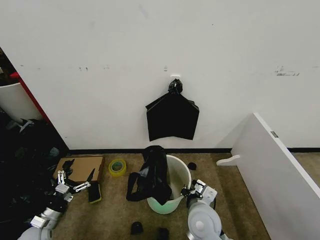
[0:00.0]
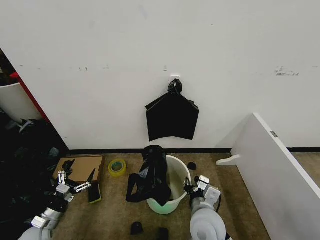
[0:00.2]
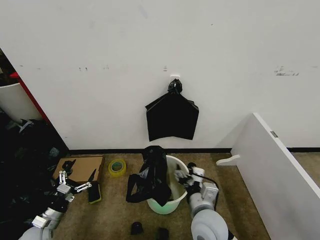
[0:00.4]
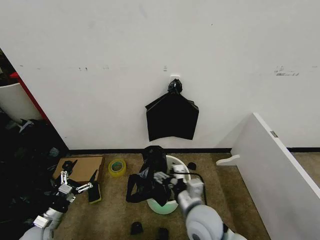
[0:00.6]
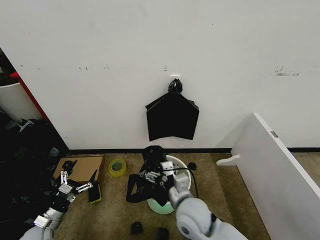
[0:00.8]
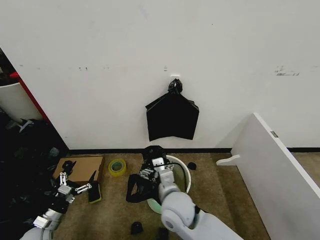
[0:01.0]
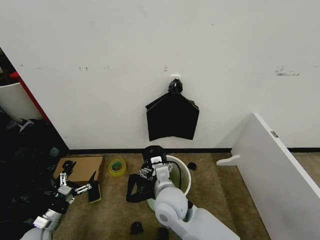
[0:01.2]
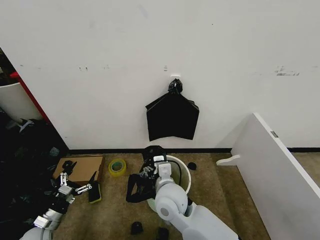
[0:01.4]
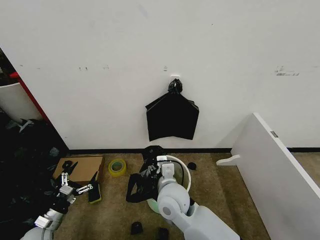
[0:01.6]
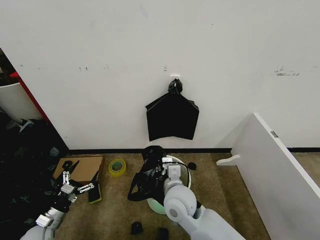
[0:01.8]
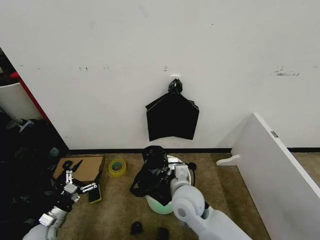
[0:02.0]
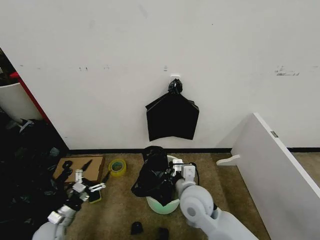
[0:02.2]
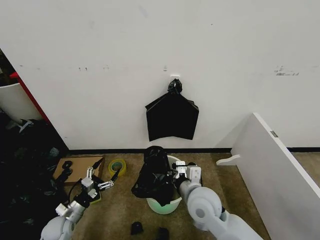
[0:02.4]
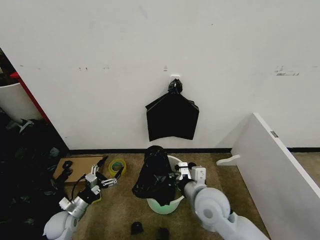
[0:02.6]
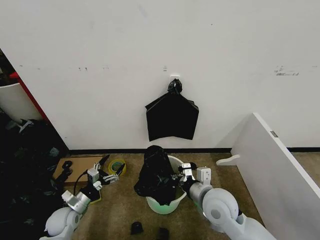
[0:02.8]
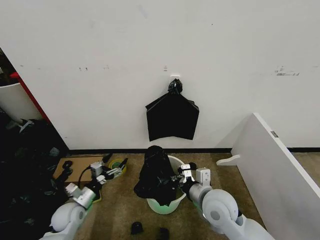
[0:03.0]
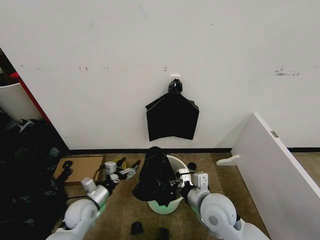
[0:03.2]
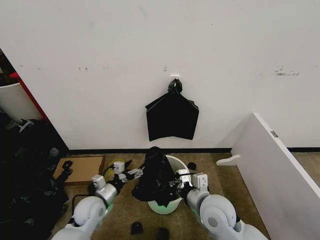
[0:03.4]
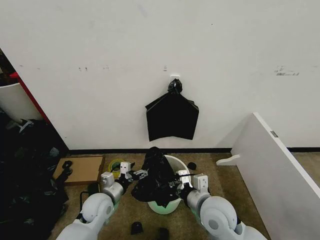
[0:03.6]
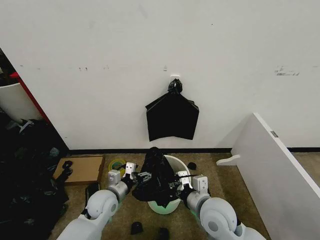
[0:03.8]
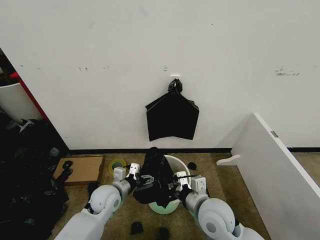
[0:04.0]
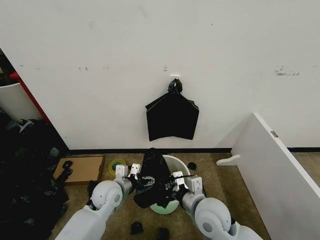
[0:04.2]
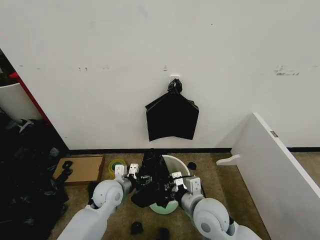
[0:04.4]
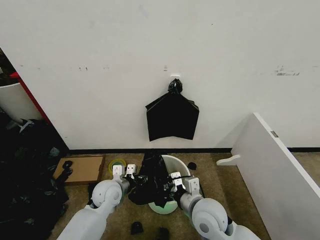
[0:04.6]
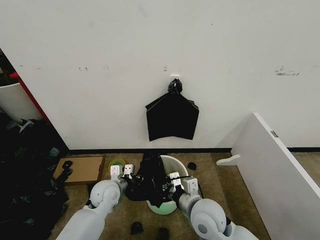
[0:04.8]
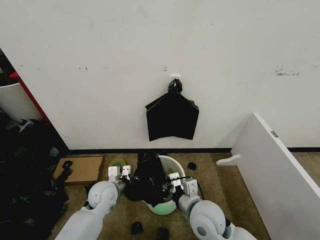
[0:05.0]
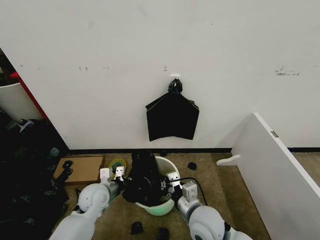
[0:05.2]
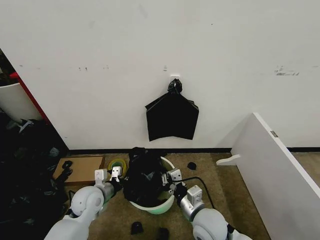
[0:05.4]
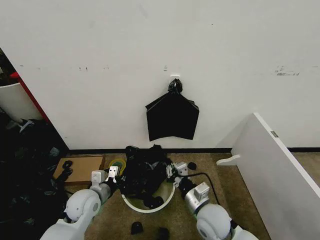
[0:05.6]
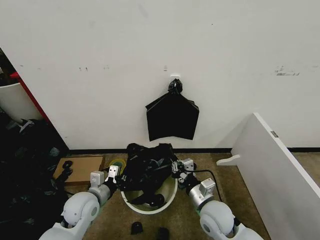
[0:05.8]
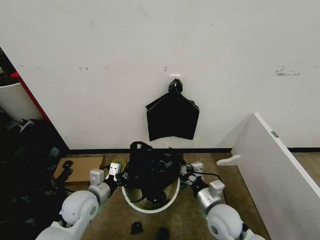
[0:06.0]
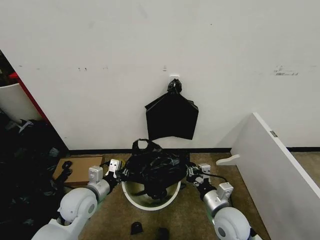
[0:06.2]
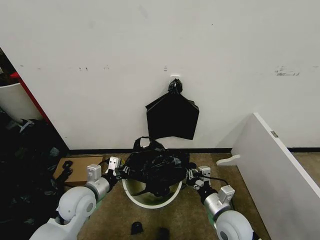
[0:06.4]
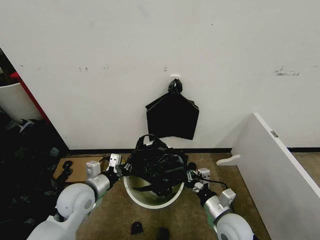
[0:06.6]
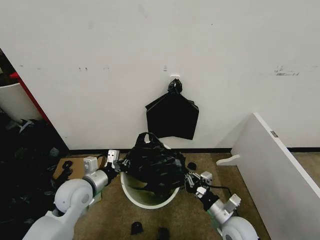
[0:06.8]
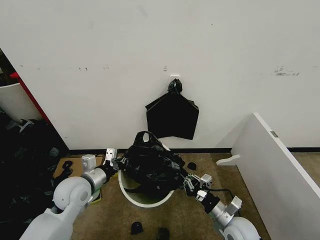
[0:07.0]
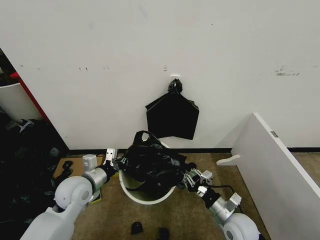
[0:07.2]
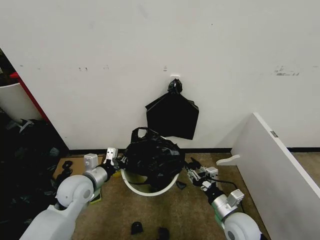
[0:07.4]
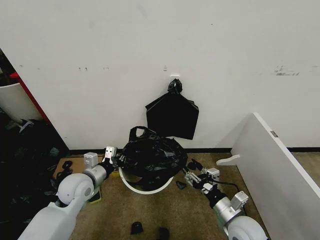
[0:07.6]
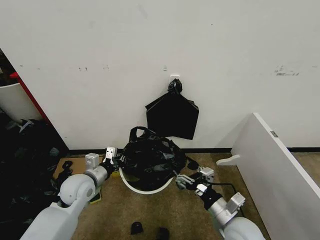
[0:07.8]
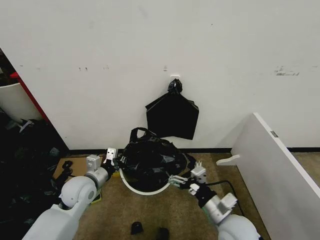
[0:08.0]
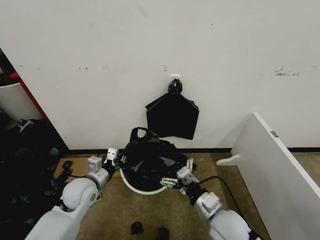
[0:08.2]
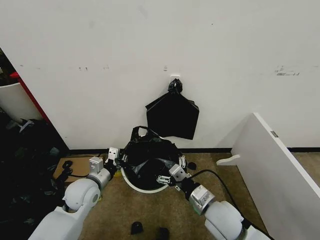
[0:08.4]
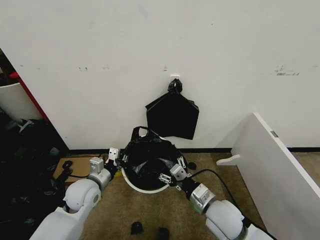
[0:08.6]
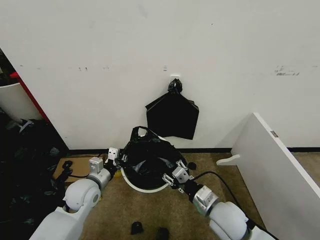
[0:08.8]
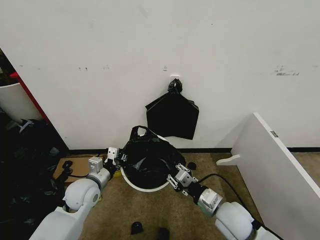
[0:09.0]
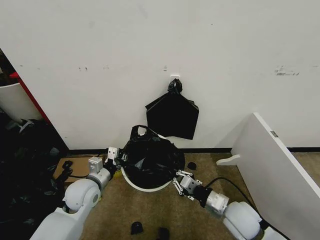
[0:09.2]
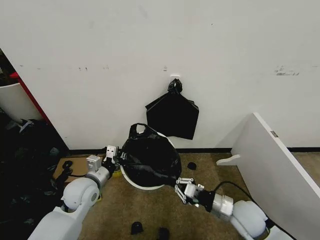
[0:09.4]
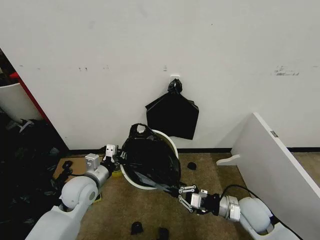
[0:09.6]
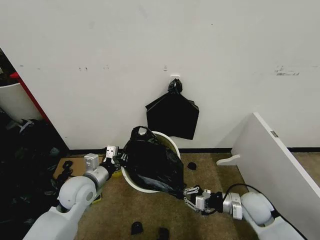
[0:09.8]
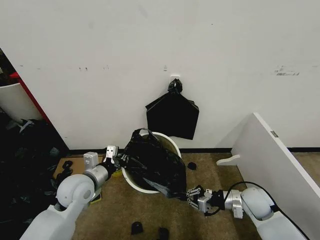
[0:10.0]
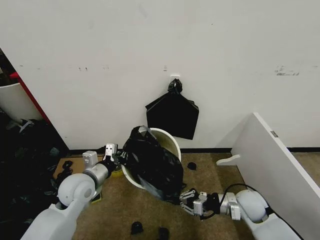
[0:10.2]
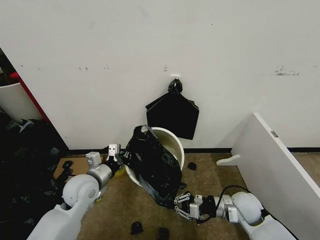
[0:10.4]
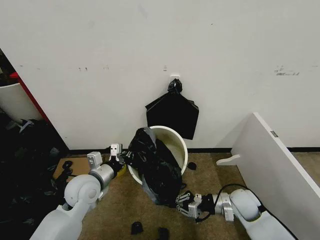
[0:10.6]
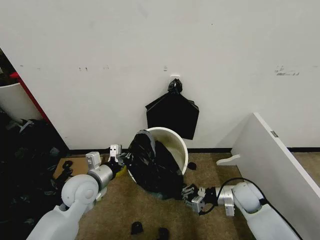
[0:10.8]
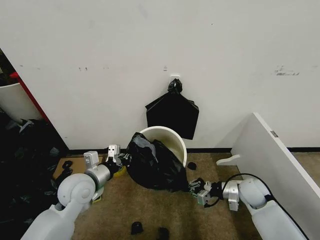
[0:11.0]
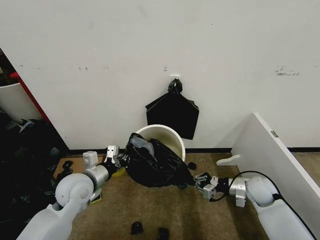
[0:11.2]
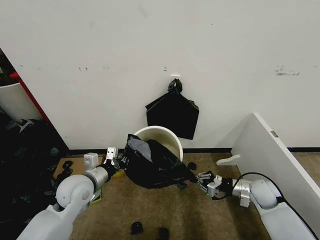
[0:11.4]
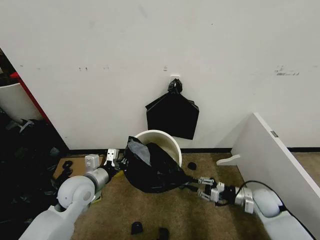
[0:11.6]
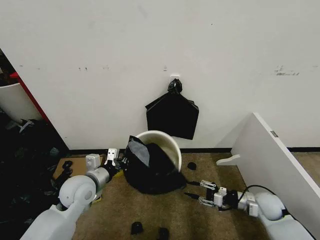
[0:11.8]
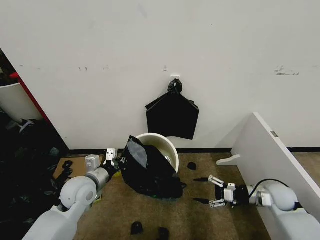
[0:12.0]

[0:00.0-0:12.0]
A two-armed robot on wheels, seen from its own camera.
Task of the whole recording: Place the garbage bag over the trash bin.
0:00.0 to 0:01.6: The right gripper shifts roughly 10 cm to the left and upward, and opens, then closes once more.
0:01.6 to 0:03.0: The right gripper travels to the right by roughly 15 cm, and closes; the left gripper shifts about 15 cm to the right, forward and upward.
0:03.0 to 0:04.4: The left gripper moves to the right and upward, approximately 15 cm.
0:04.4 to 0:06.0: The right gripper travels downward and to the right by roughly 10 cm, while the left gripper heads to the left and backward, covering about 10 cm, and closes.
0:06.0 to 0:07.6: The right gripper is displaced to the right by about 5 cm, and opens its fingers; the left gripper ends up some 5 cm from where it was.
0:09.0 to 0:10.4: The right gripper heads to the right, forward and downward, covering approximately 10 cm.
0:10.4 to 0:12.0: The right gripper travels to the right by some 15 cm, and opens up.

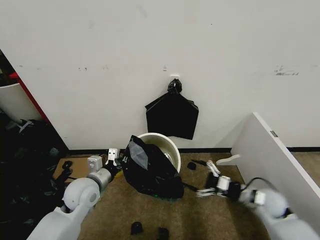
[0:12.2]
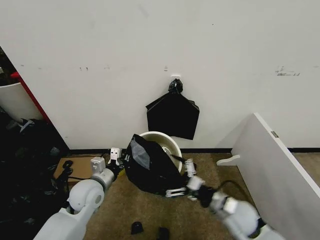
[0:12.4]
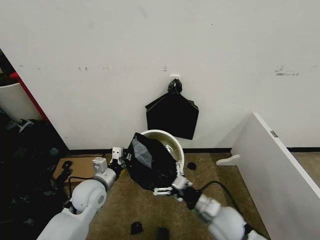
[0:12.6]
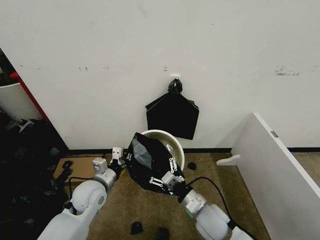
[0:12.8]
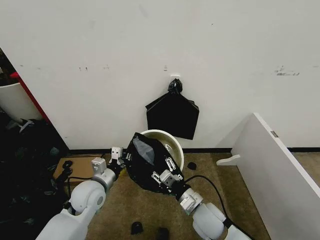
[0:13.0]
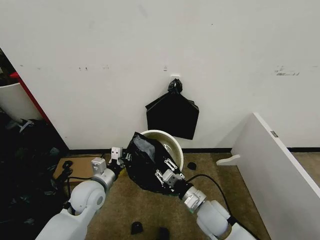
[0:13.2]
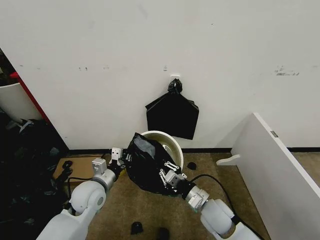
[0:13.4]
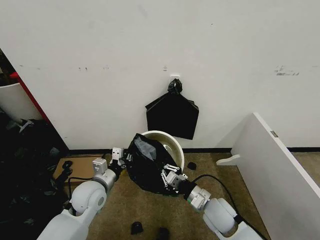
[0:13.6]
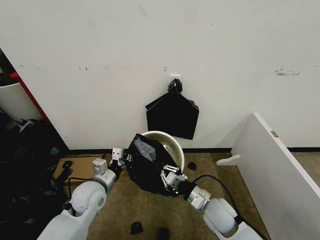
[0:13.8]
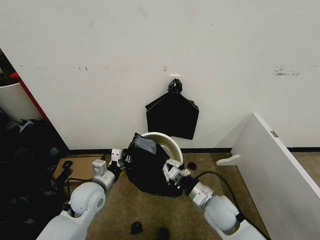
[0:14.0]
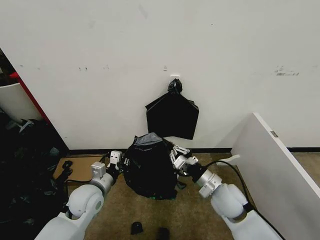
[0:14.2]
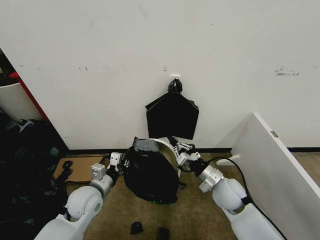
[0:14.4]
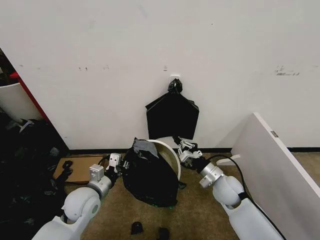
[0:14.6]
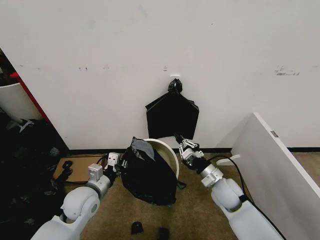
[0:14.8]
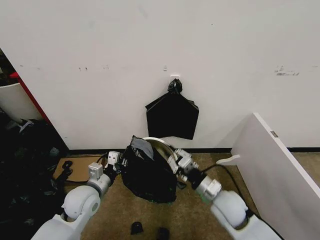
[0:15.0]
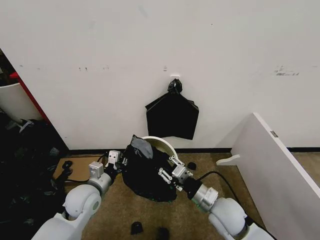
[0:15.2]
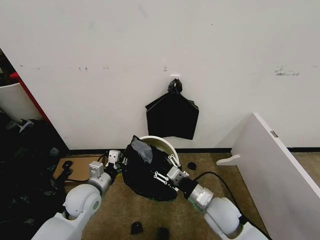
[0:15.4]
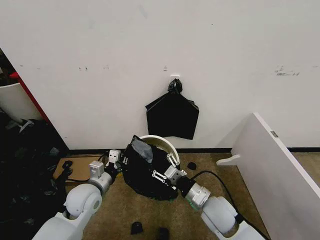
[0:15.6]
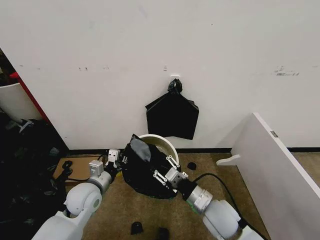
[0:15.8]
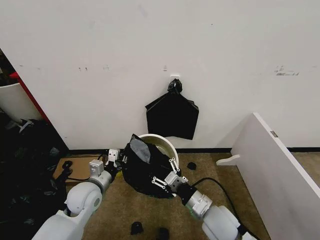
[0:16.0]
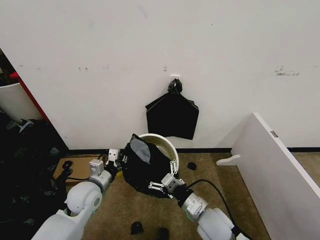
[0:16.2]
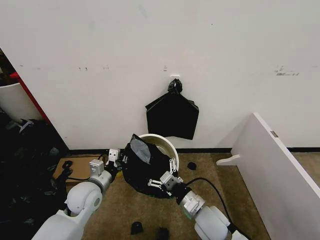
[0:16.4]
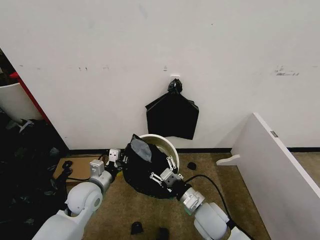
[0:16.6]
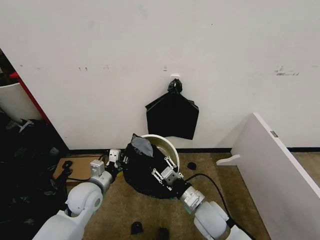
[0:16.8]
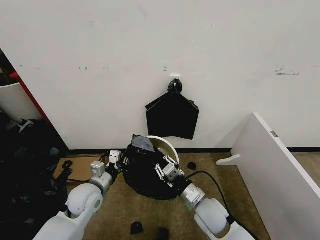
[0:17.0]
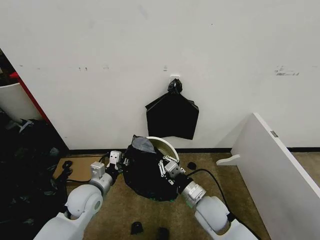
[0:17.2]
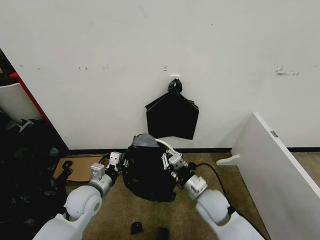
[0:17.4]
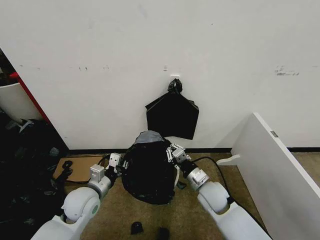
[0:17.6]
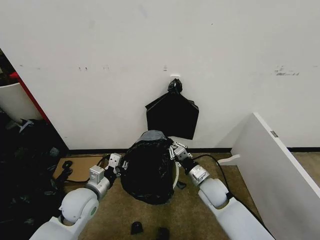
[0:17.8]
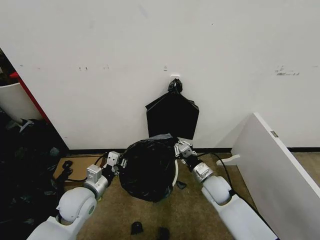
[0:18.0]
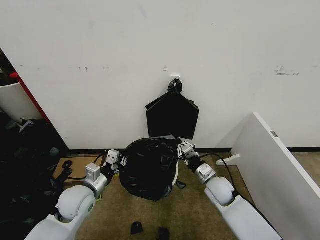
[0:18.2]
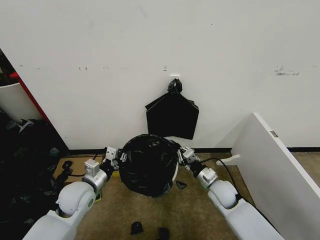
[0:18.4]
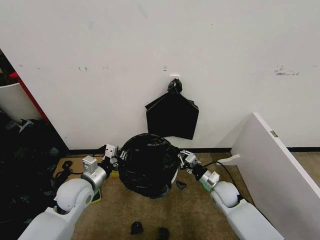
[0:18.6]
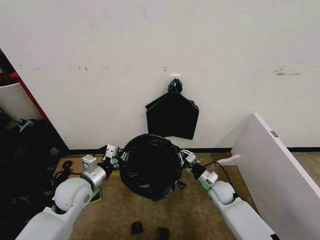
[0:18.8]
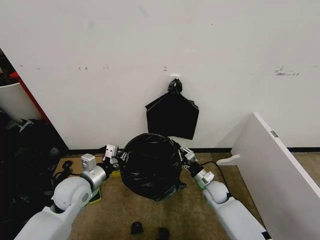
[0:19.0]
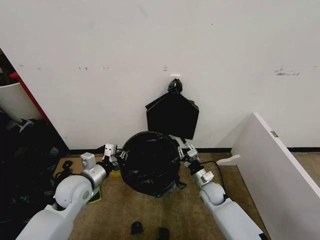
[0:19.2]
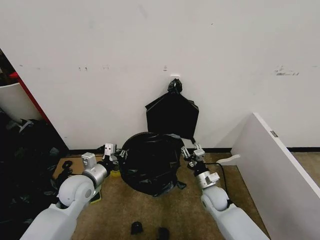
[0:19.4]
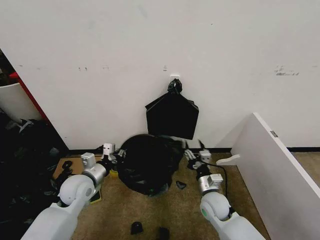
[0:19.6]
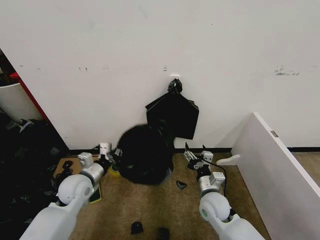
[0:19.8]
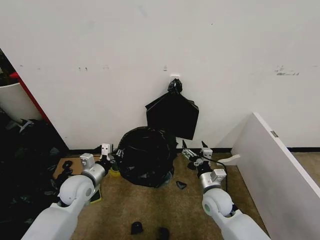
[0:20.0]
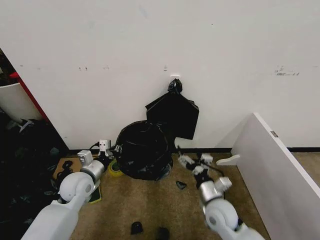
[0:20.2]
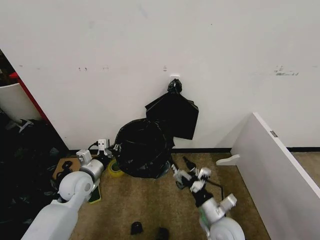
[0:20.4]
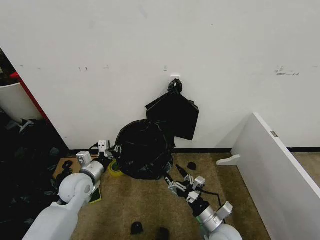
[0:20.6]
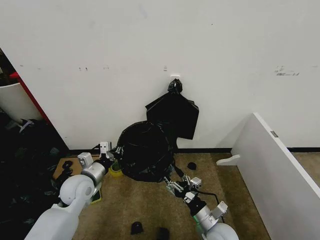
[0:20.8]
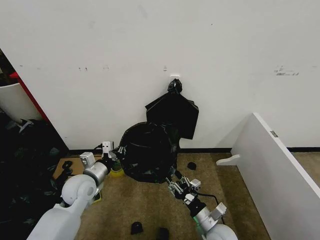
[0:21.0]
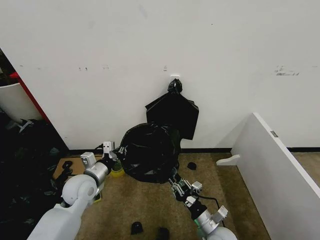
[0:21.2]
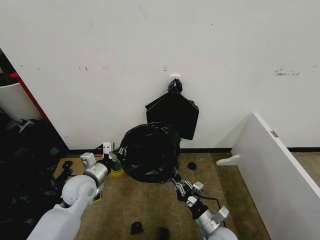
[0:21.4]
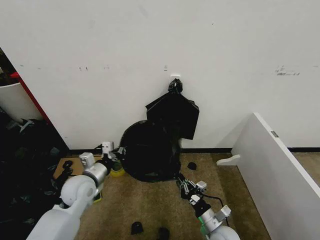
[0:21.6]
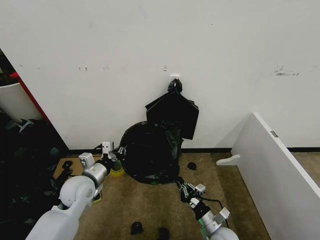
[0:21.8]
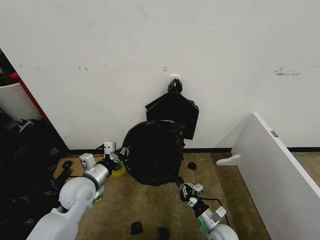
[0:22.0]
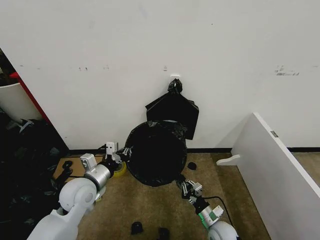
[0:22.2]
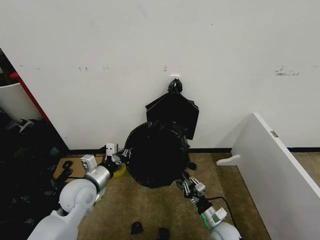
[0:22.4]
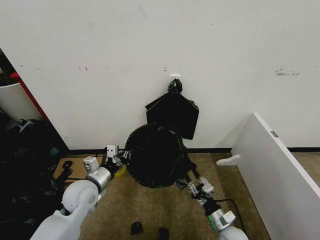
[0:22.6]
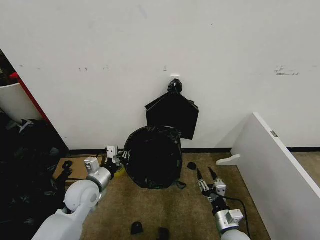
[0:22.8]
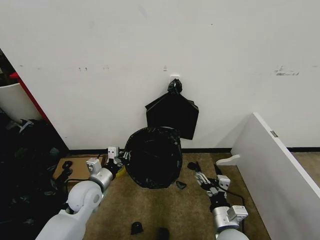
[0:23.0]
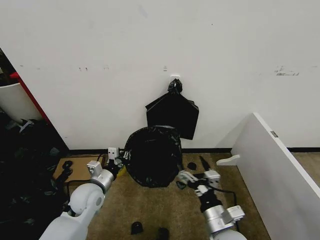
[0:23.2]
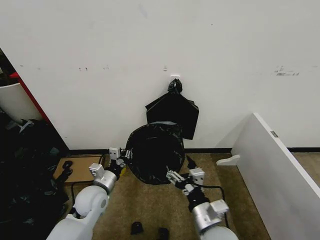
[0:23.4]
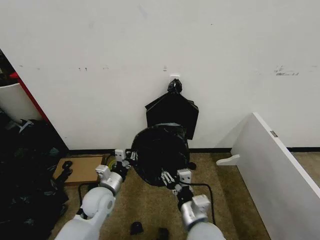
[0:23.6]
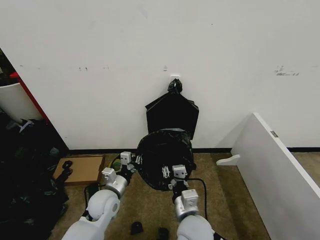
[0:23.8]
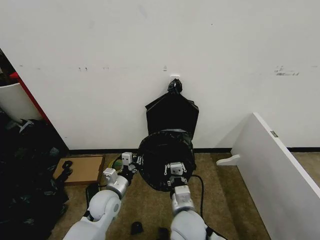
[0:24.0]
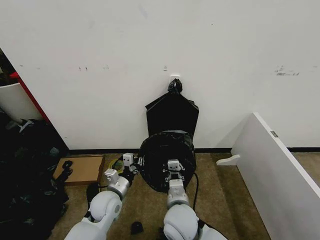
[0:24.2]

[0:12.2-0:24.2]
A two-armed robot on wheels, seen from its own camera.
Task of the whole recording: Place the garbage bag over the trash bin.
0:12.2 to 0:13.8: The right gripper goes some 20 cm to the left, and closes its fingers.
0:13.8 to 0:15.2: The right gripper reaches about 10 cm forward, then returns.
0:15.2 to 0:16.6: The right gripper moves about 5 cm.
0:16.6 to 0:18.2: The right gripper is displaced forward and to the right by approximately 15 cm, and closes.
0:18.2 to 0:19.8: The right gripper goes some 5 cm backward, reaches approximately 10 cm downward, then returns, and opens up.
0:19.8 to 0:21.2: The right gripper heads backward and downward, covering about 10 cm, and closes its fingers.
0:21.2 to 0:22.6: The right gripper goes approximately 5 cm to the right.
0:22.6 to 0:24.2: The left gripper goes about 10 cm downward and to the right, while the right gripper shifts approximately 25 cm to the left and upward, and opens, then closes again.
